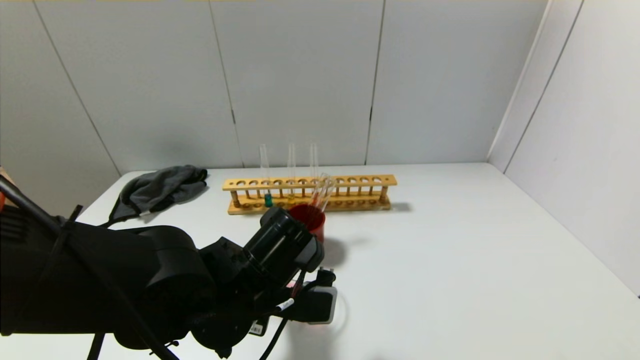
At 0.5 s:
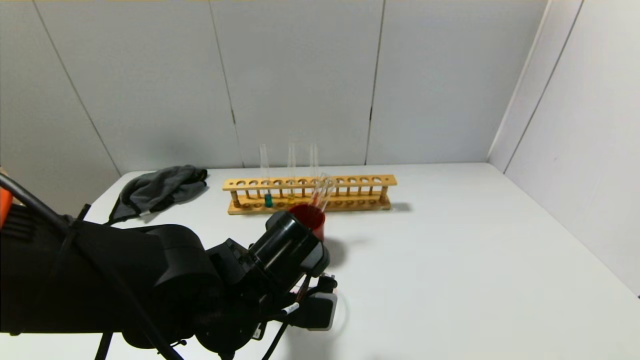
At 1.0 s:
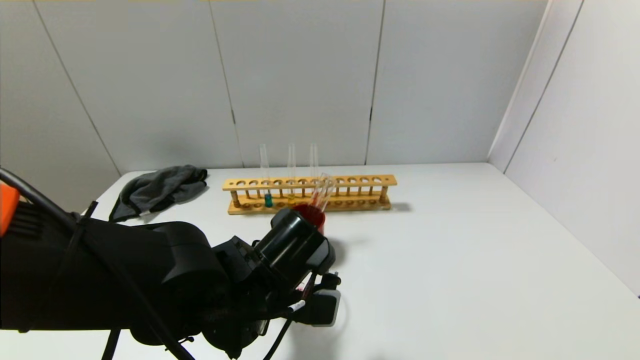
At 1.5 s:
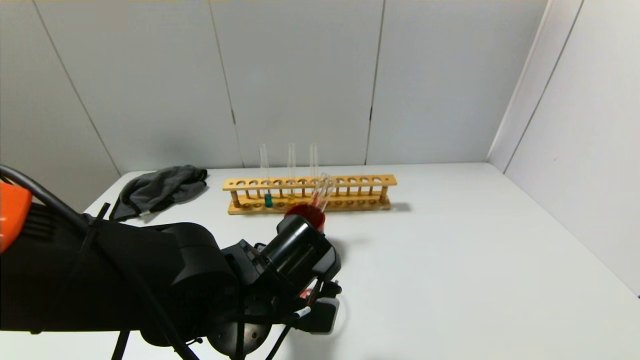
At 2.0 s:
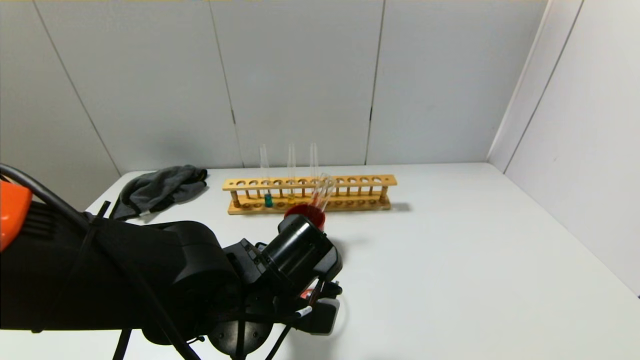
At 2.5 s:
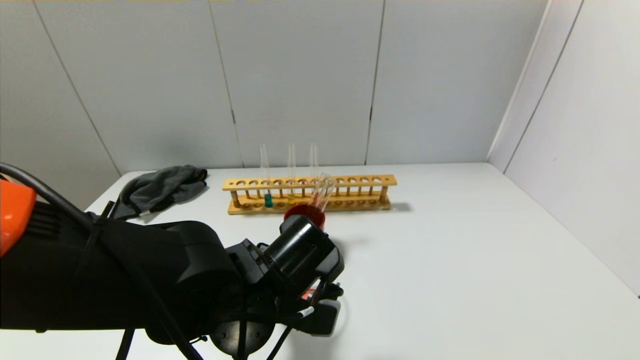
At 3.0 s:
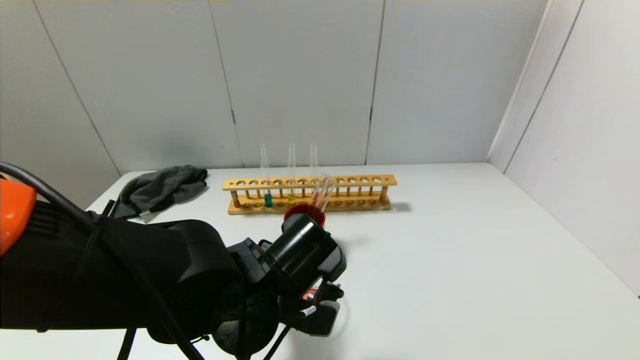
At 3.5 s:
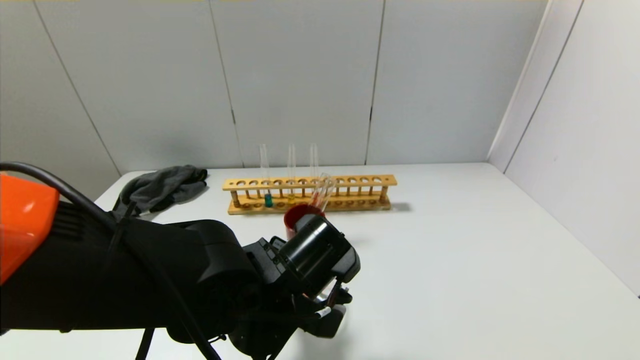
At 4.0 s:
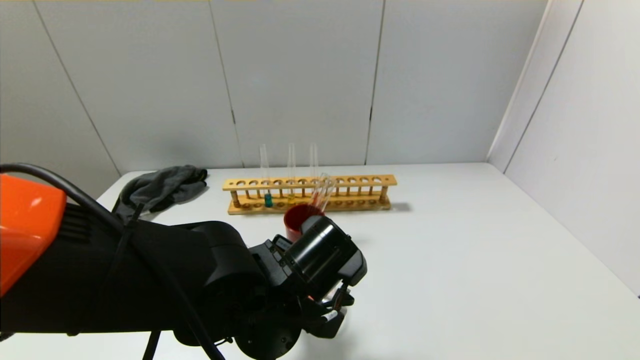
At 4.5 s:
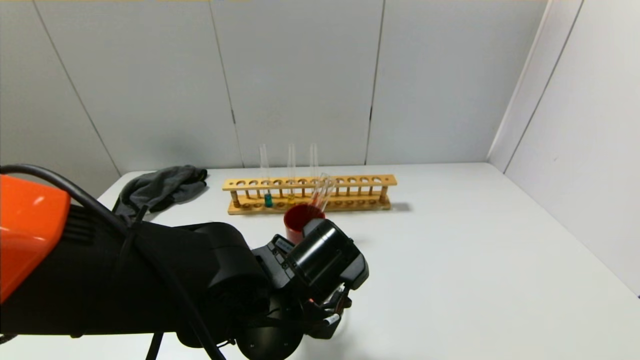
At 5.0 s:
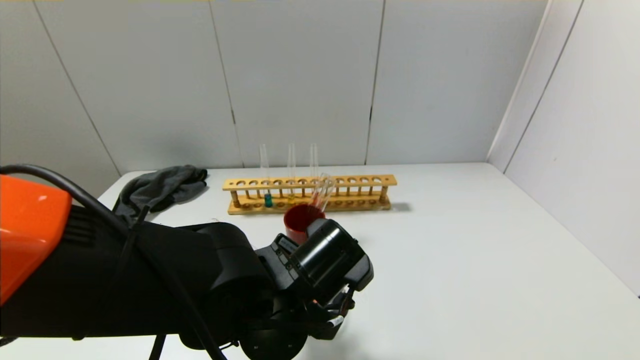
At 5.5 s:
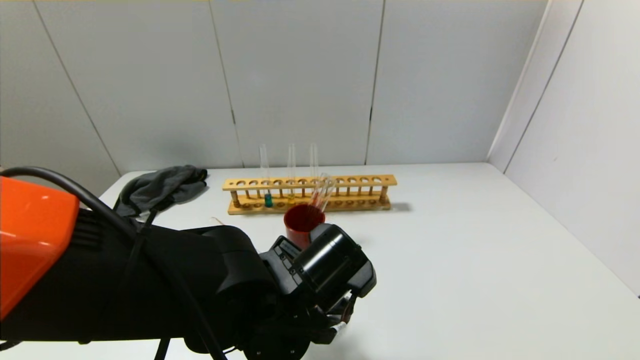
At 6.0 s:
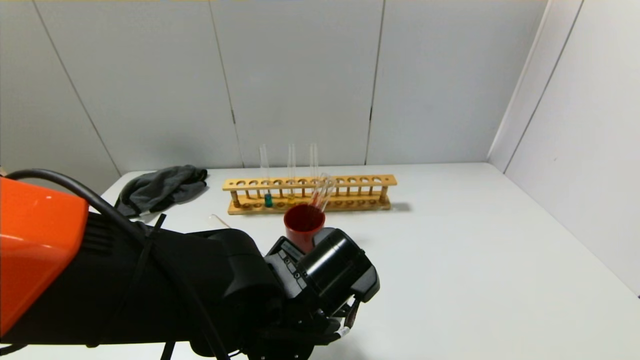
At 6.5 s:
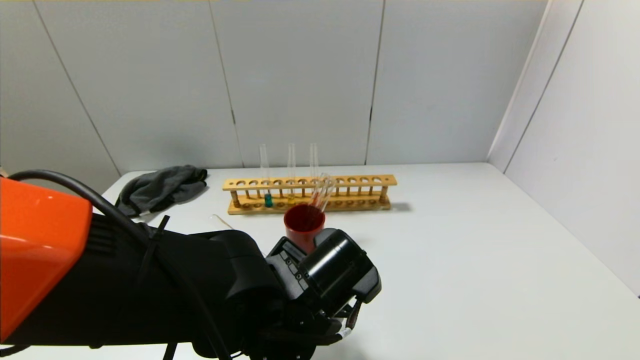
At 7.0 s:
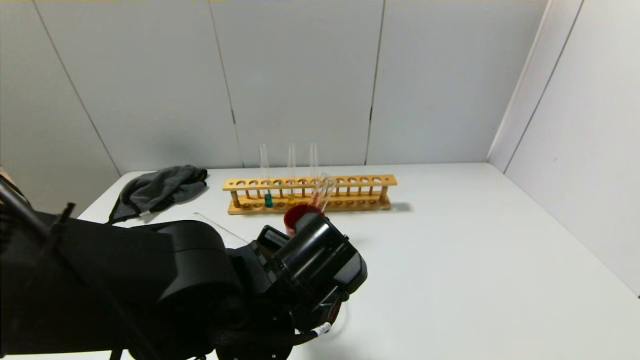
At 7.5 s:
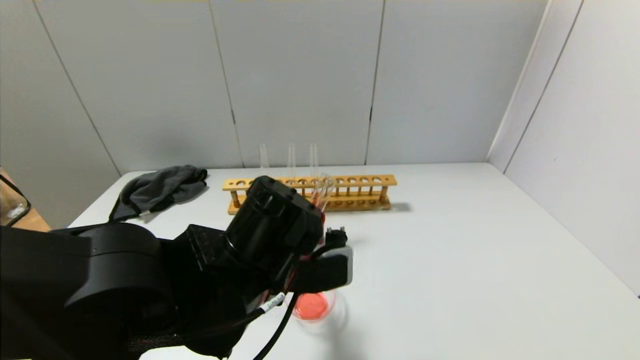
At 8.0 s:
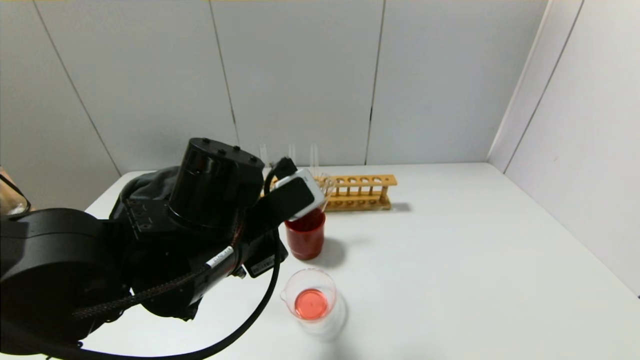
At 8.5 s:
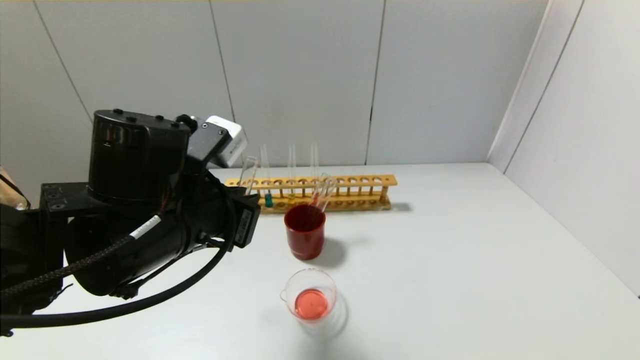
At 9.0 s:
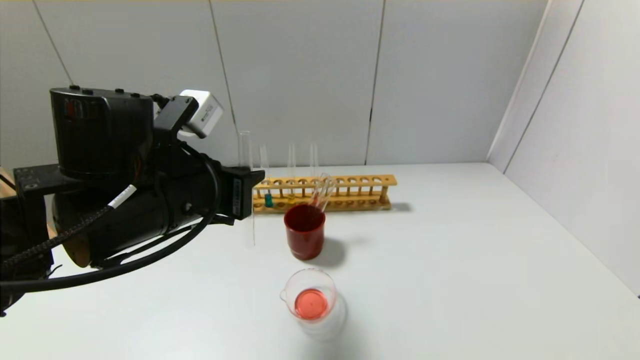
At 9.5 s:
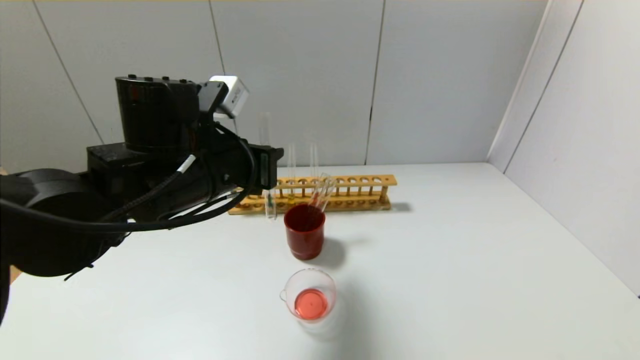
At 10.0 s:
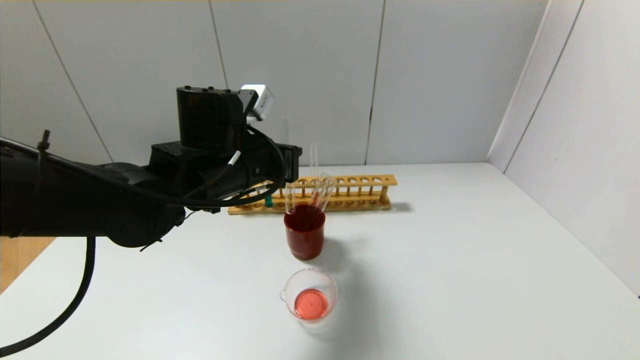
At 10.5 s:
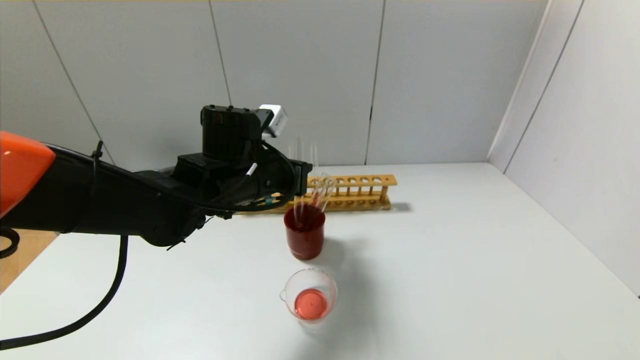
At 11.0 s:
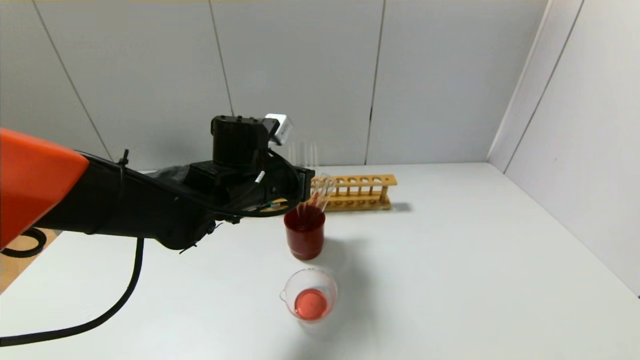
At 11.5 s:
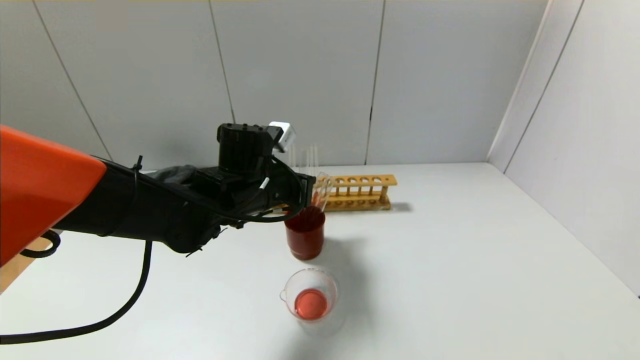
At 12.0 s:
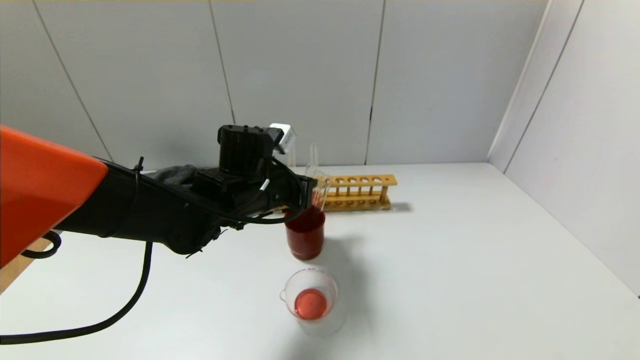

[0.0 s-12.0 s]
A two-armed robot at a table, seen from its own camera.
Step, 0.0 to 7.0 s: Pour the red reagent into the graduated cylinder with the left gripper.
0.0 to 2.0 s: There are only small adjustments of the grippers.
2.0 to 4.0 s: The grippers stay close to where they were, moving slightly.
4.0 to 6.0 s: There are only small adjustments of the grippers.
6.0 to 8.0 s: The left gripper is displaced upward and to the left by about 10 cm.
8.0 to 10.0 s: The left gripper goes approximately 10 cm forward.
10.0 to 12.0 s: The left gripper goes approximately 5 cm downward.

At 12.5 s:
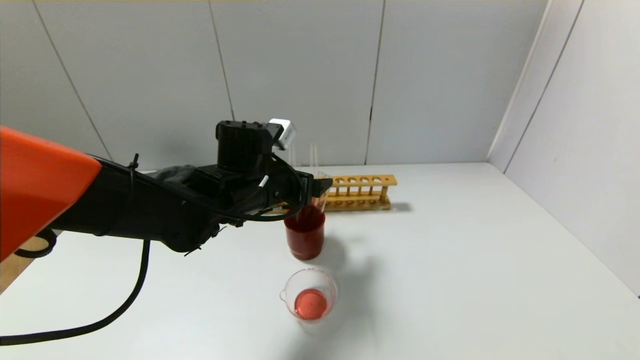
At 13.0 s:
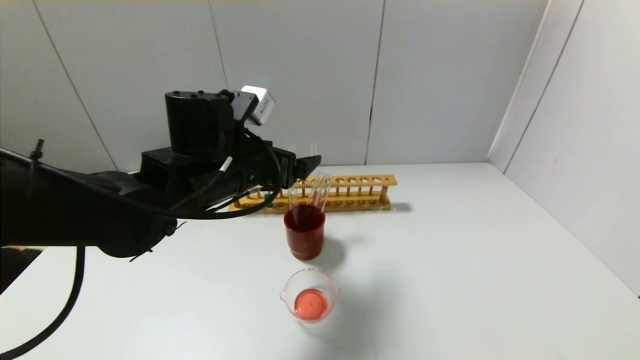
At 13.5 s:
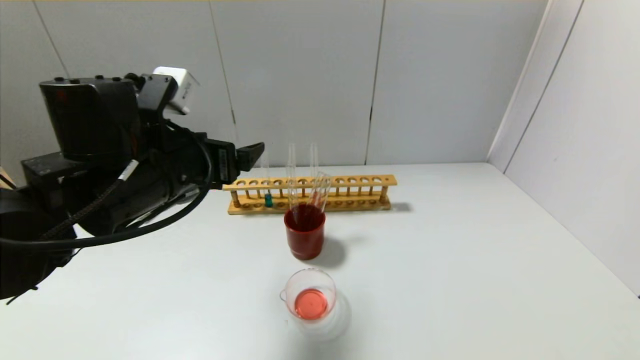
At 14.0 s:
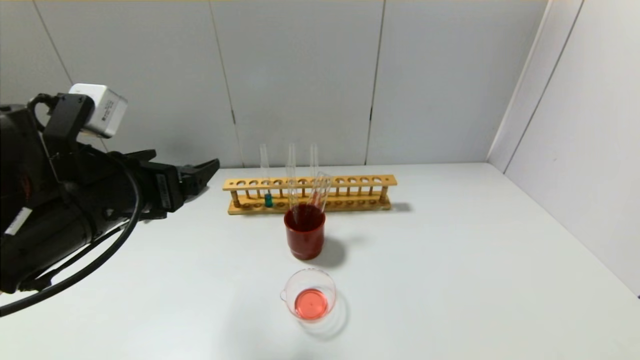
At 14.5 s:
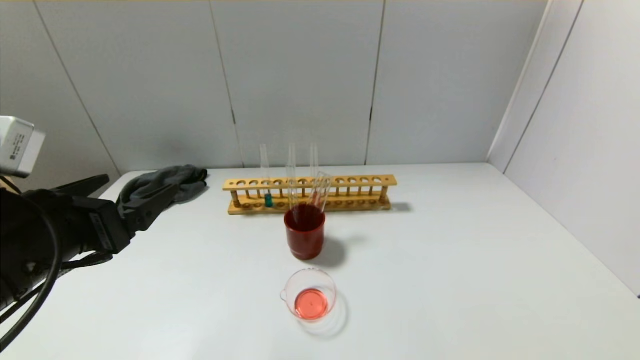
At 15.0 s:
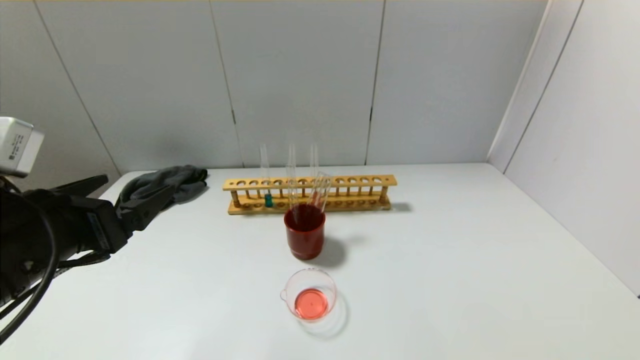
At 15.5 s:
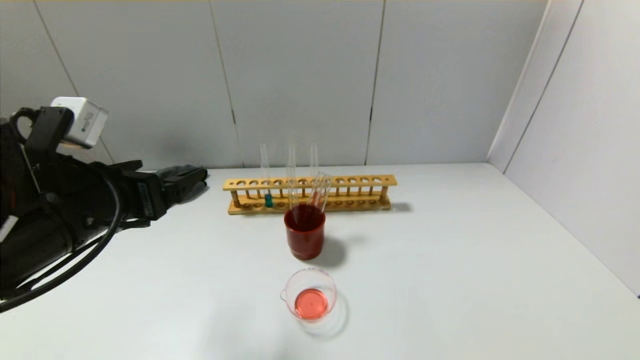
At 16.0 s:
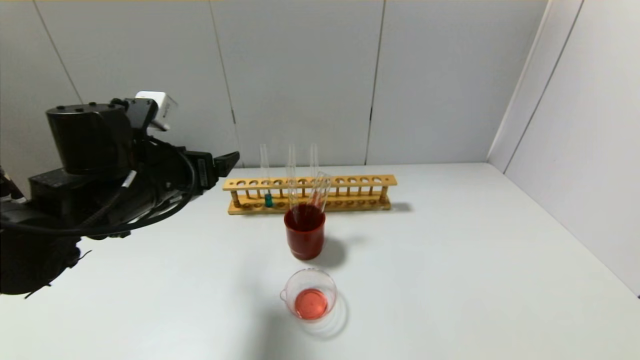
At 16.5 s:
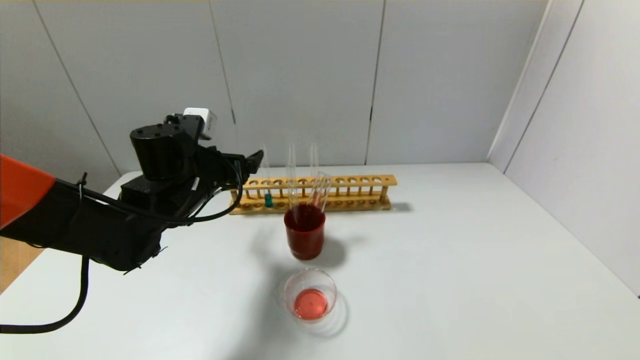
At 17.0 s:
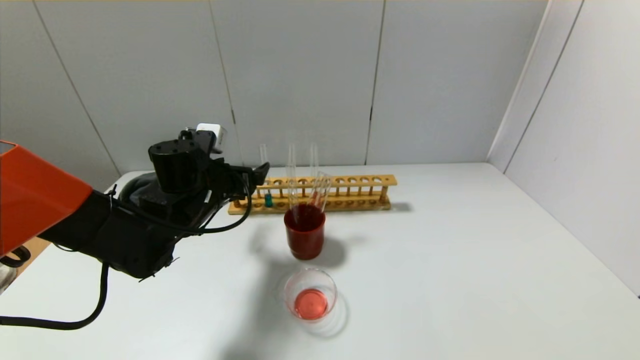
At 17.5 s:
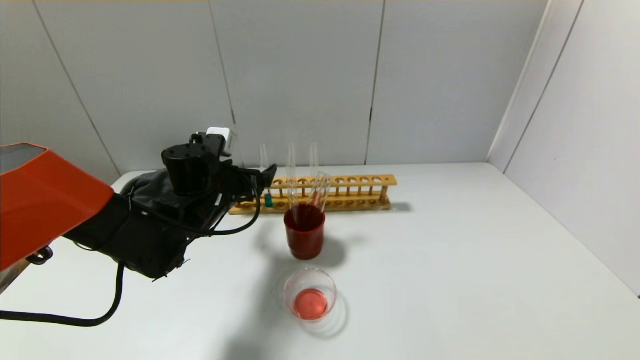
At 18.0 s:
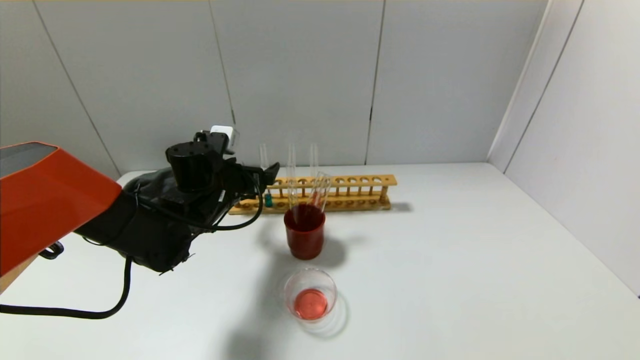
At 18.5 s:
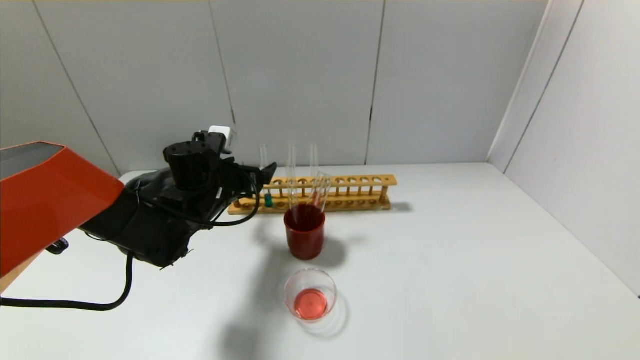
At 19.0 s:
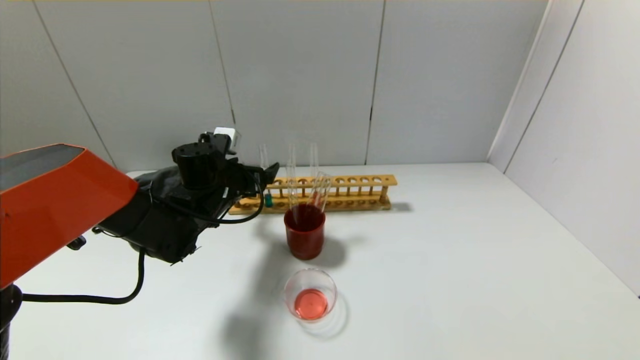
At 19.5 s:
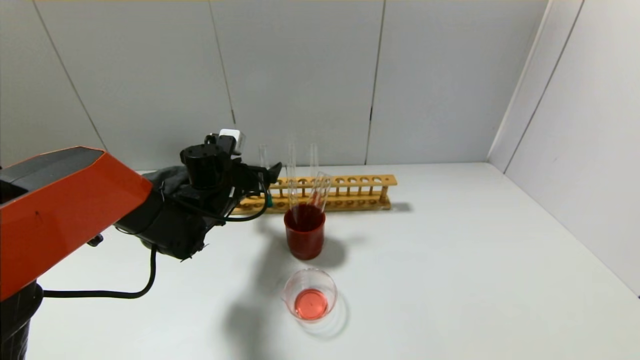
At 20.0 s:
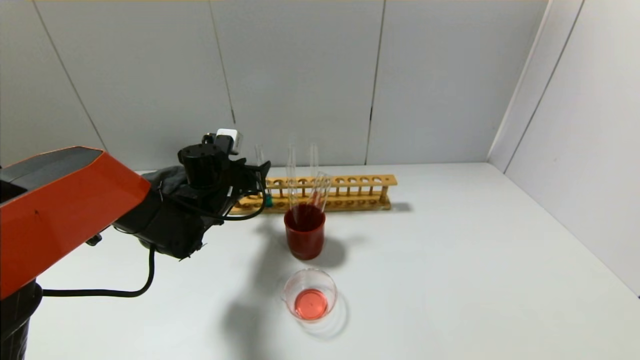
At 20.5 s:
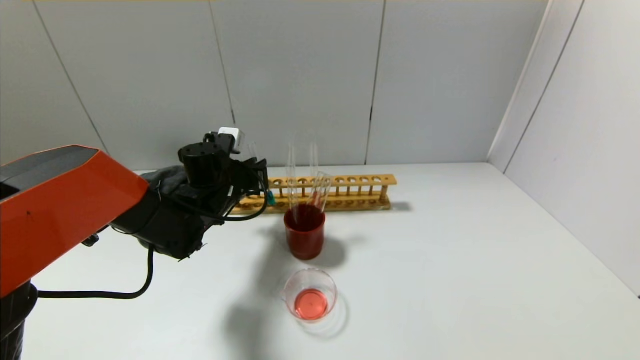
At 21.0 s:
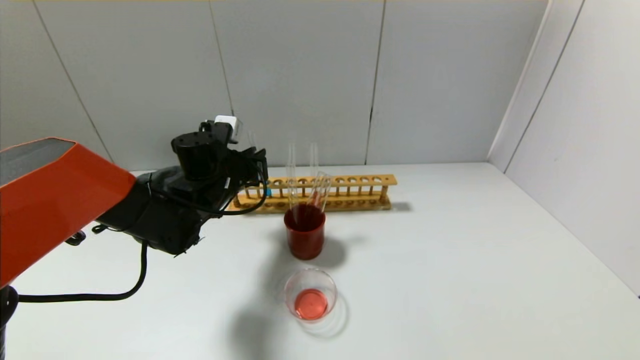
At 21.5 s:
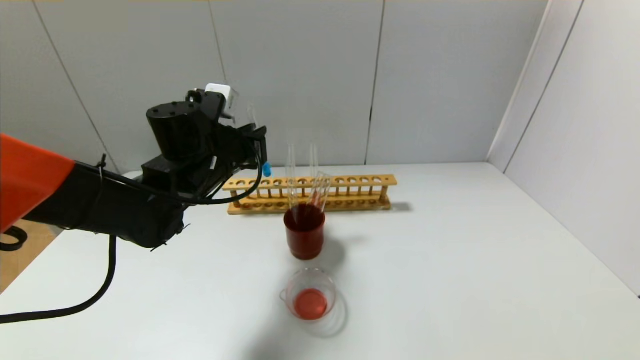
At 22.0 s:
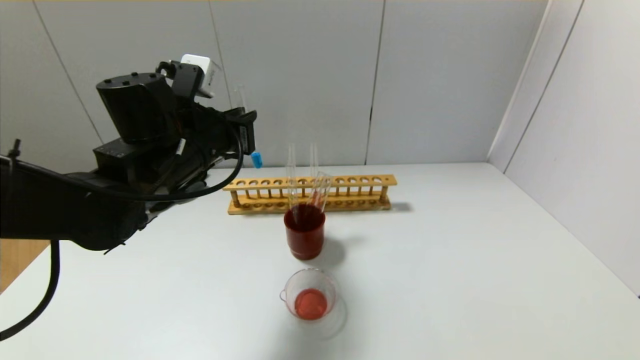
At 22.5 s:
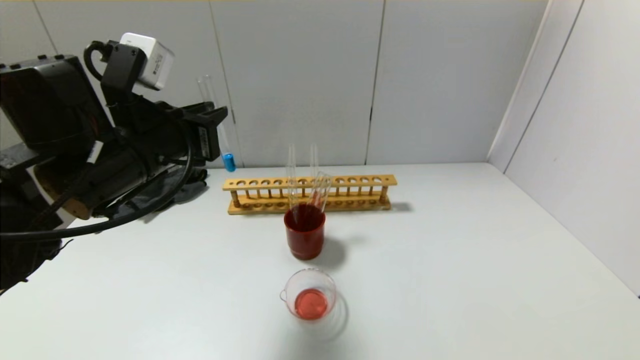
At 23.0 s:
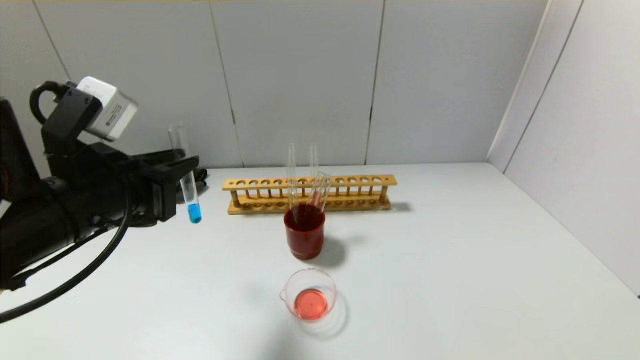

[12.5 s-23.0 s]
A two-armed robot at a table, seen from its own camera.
Step, 13.0 to 20.0 s: Grasp the blue reagent with the left gripper.
12.5 to 14.5 s: The left gripper goes roughly 25 cm backward and to the left.
14.5 to 16.5 s: The left gripper is displaced forward by some 20 cm.
16.5 to 19.0 s: The left gripper moves roughly 5 cm.
19.0 to 21.0 s: The left gripper closes.
21.0 to 23.0 s: The left gripper is displaced backward and upward by some 20 cm.
